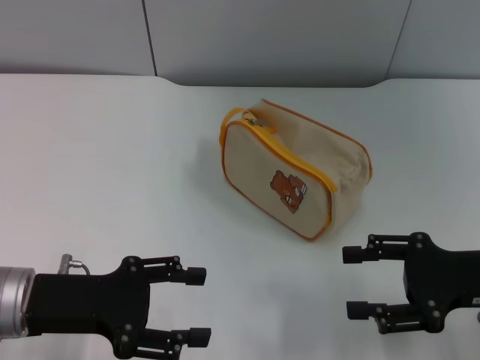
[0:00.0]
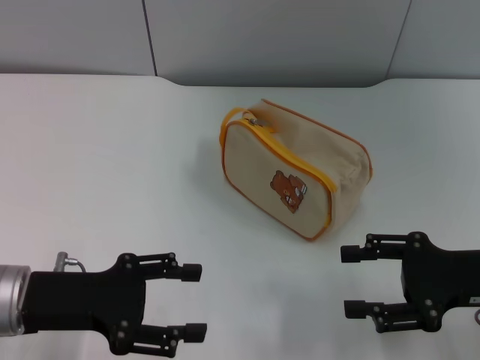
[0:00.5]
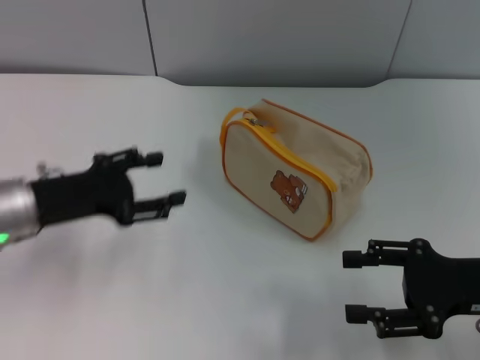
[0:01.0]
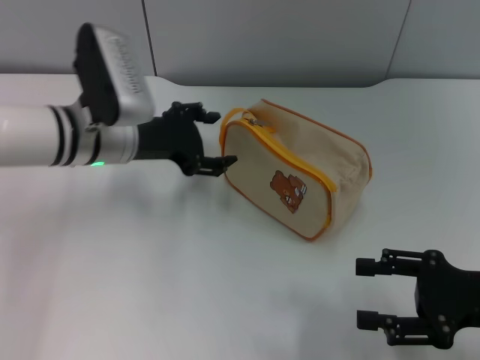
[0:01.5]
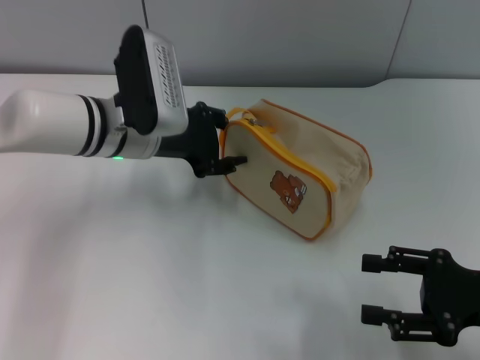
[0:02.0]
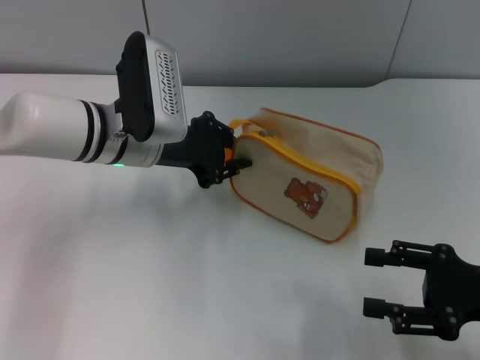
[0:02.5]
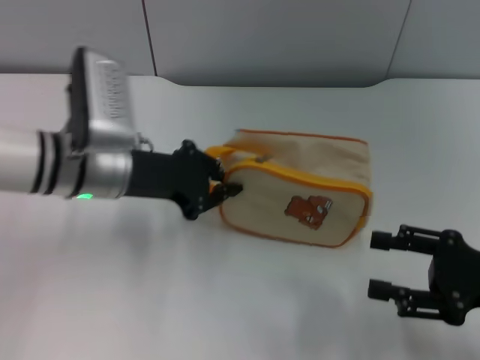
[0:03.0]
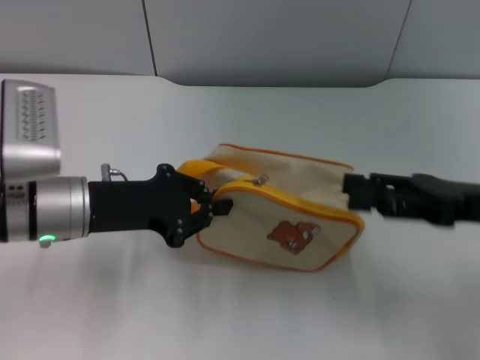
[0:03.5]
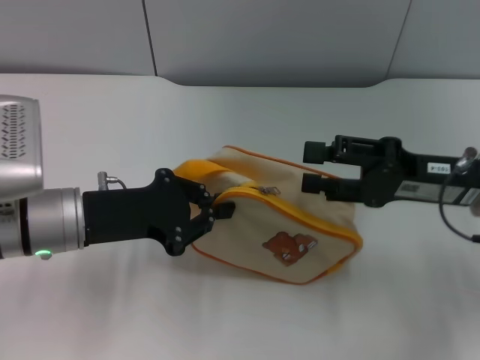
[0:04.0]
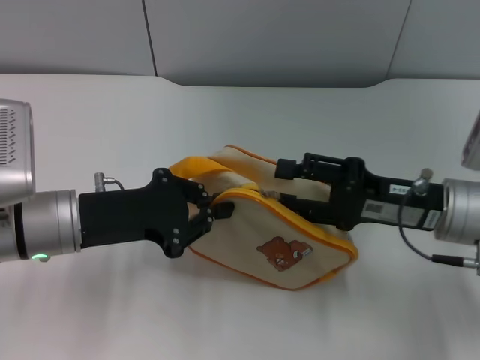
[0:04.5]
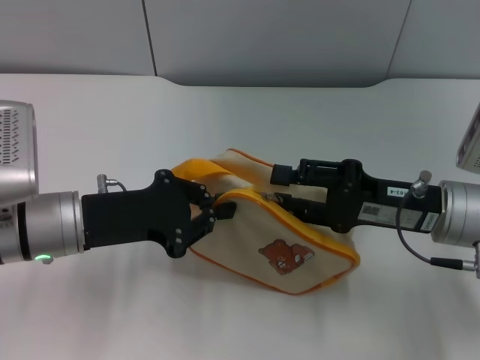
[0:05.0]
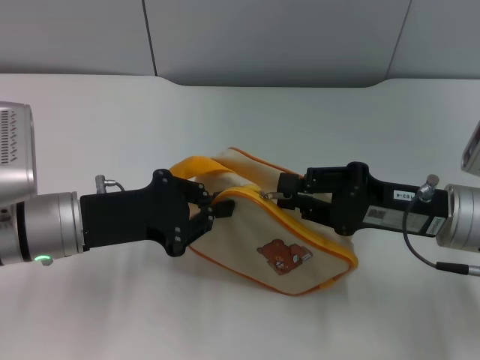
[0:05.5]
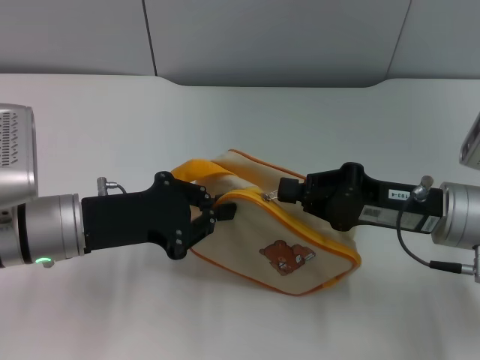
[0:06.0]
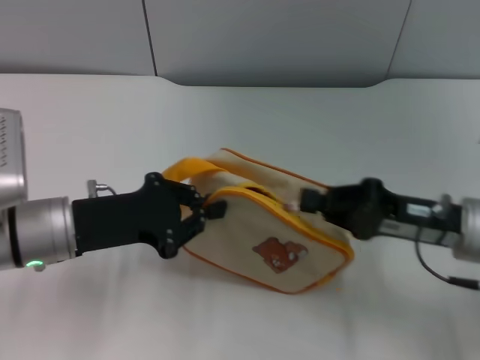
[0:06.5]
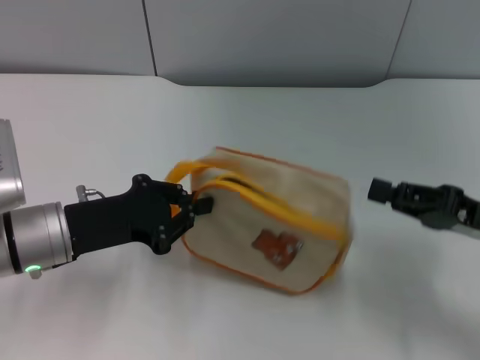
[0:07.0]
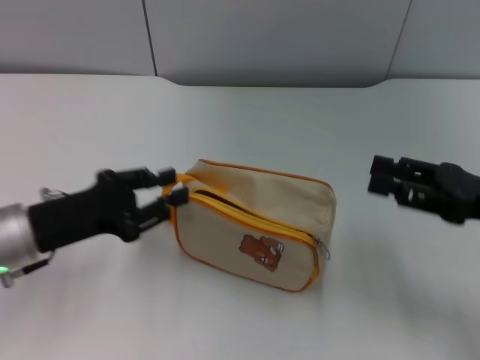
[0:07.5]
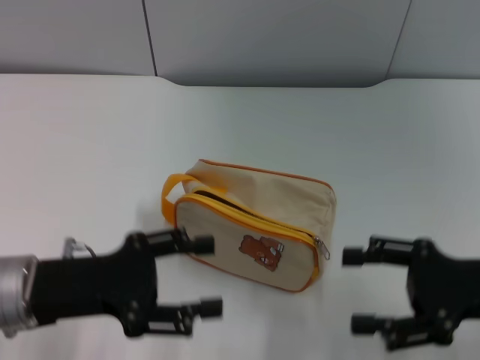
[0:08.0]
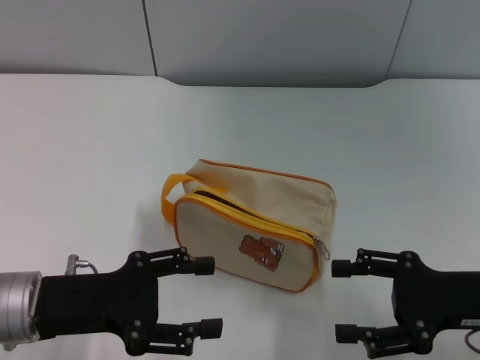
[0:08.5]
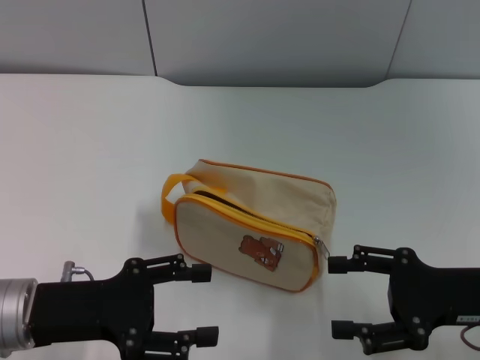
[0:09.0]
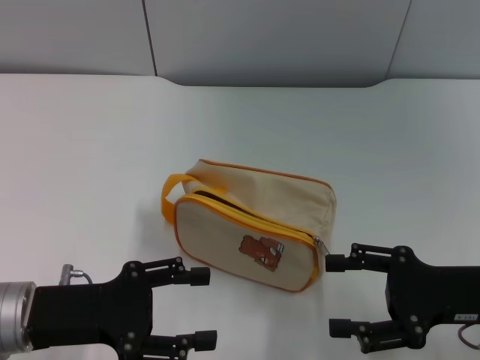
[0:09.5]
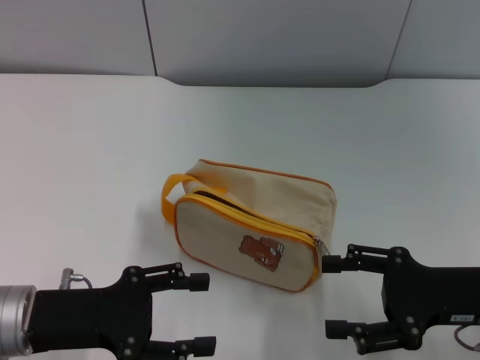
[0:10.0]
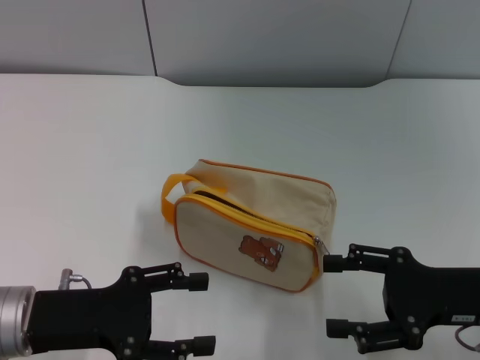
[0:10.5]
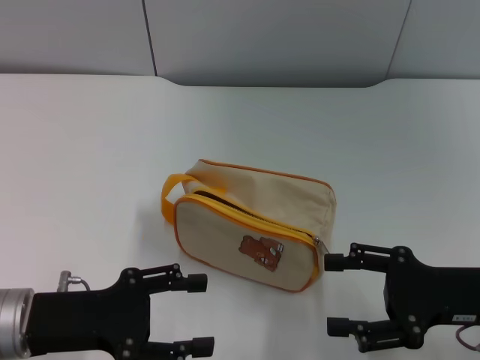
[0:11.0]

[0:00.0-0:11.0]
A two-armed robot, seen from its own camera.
Step, 0:00.0 to 0:03.5: Pick up the bag with left gripper.
Step, 0:04.0 to 0:06.5: Unzip the zipper of bag with right gripper.
0:00.0 to 0:02.0: The left gripper travels forward and to the right by roughly 20 cm.
0:02.0 to 0:03.5: The left gripper travels backward and to the left by approximately 10 cm, and closes its fingers; the right gripper travels forward and upward by roughly 10 cm.
0:03.5 to 0:05.5: The right gripper is displaced to the left by roughly 5 cm, and closes its fingers.
0:05.5 to 0:07.5: The right gripper is displaced to the right by some 10 cm.
0:07.5 to 0:09.0: The right gripper ends up approximately 5 cm from where it was, and opens up; the left gripper is displaced backward by approximately 5 cm, and opens its fingers.
0:09.0 to 0:11.0: Neither gripper changes place.

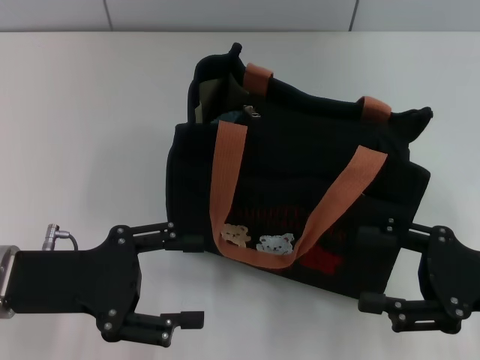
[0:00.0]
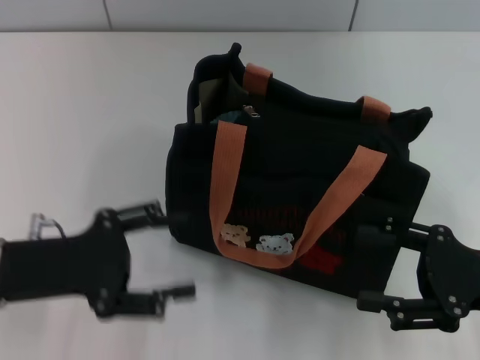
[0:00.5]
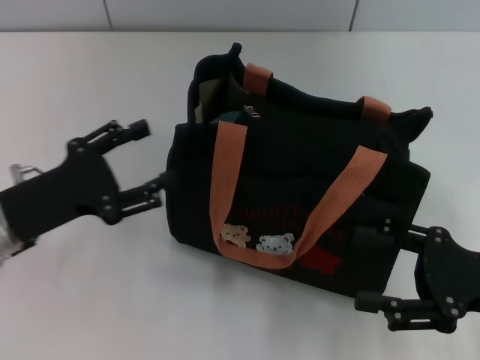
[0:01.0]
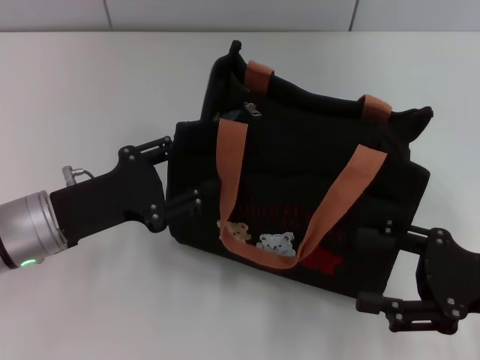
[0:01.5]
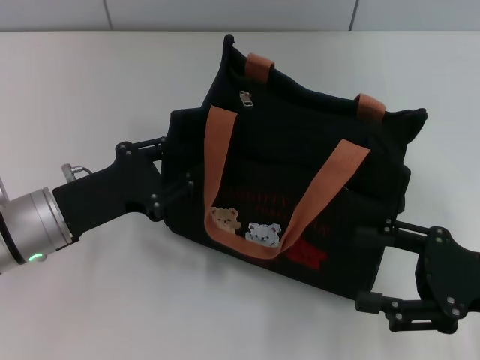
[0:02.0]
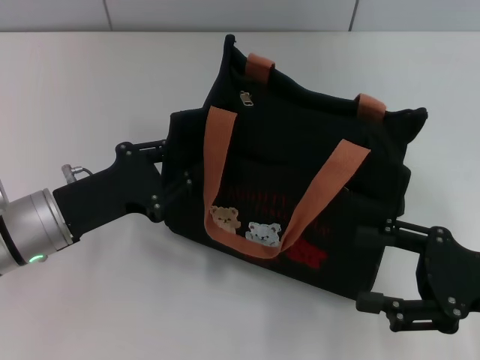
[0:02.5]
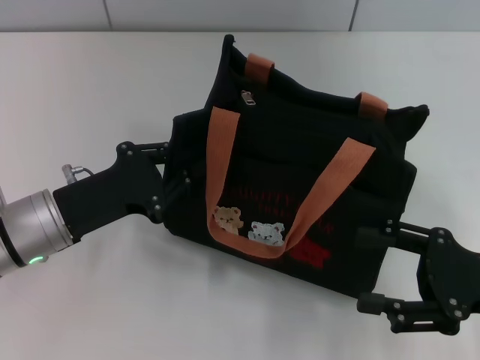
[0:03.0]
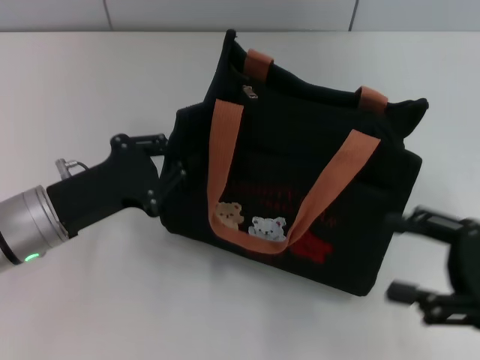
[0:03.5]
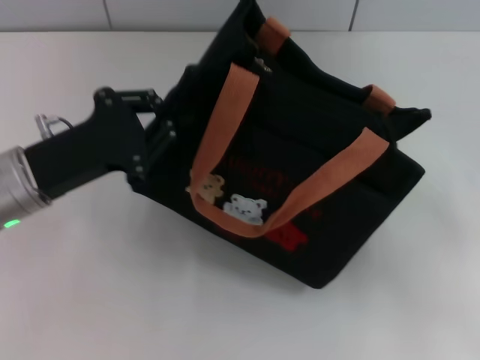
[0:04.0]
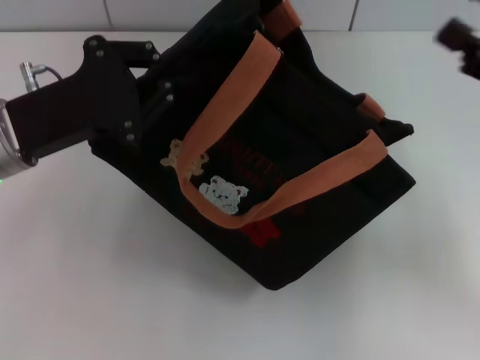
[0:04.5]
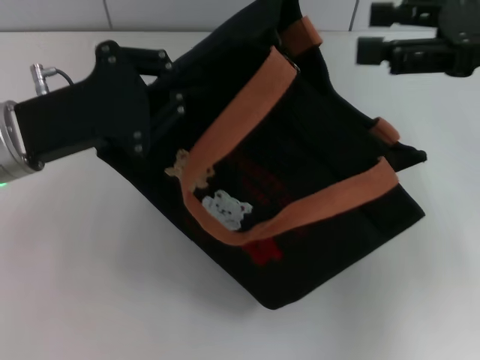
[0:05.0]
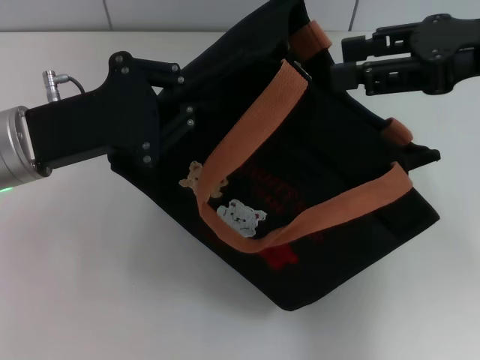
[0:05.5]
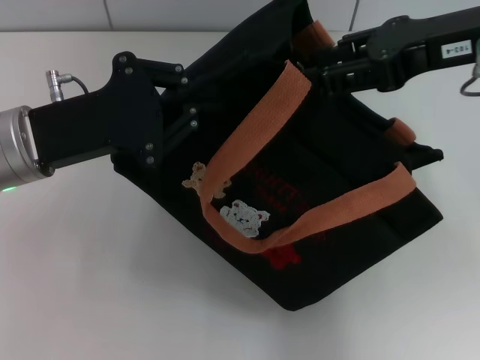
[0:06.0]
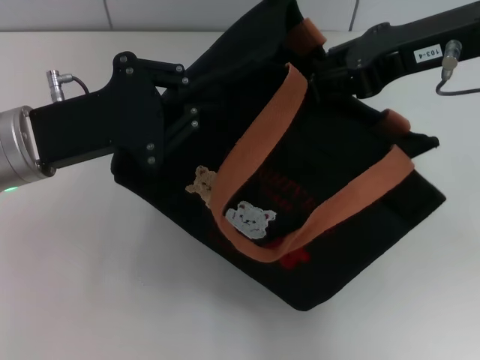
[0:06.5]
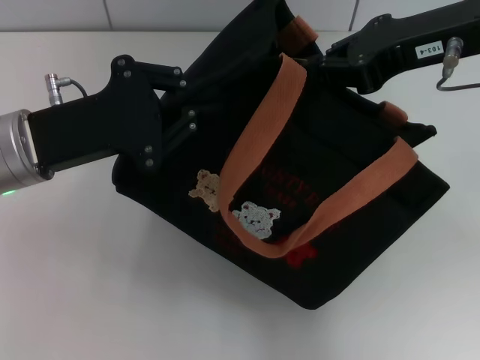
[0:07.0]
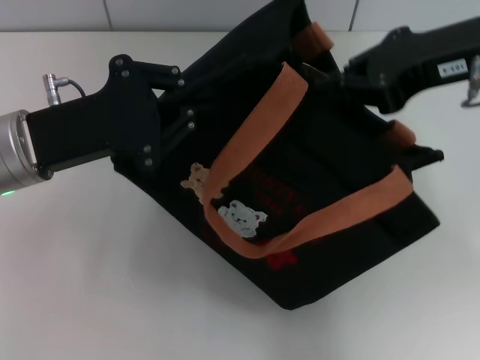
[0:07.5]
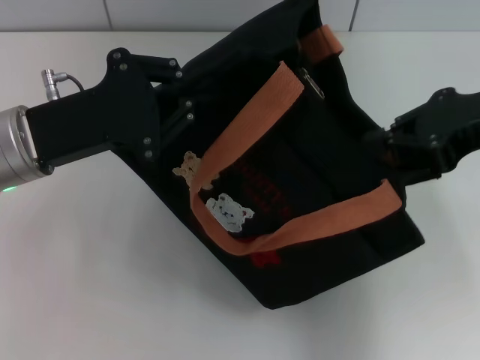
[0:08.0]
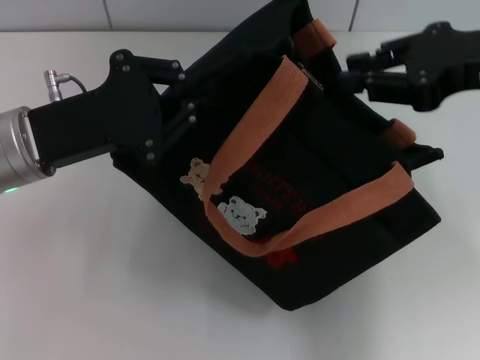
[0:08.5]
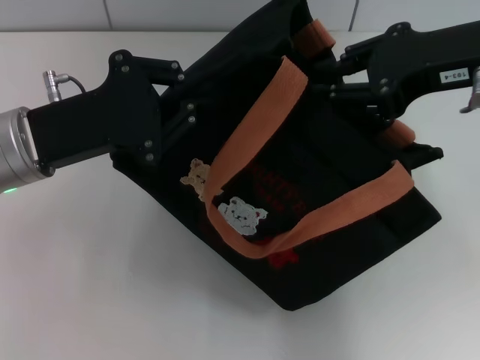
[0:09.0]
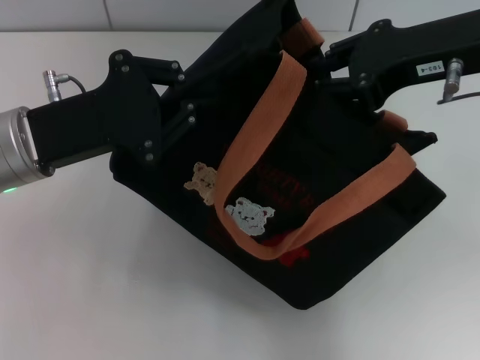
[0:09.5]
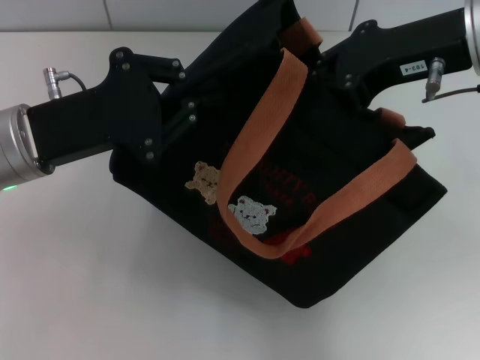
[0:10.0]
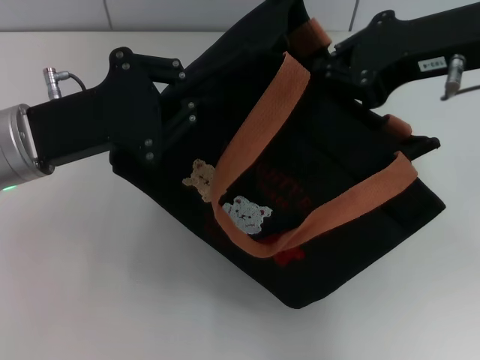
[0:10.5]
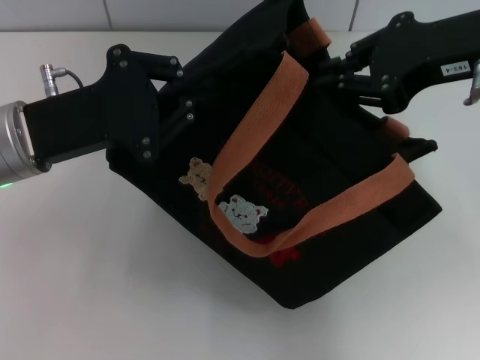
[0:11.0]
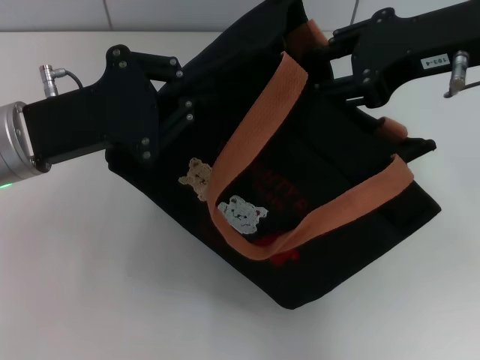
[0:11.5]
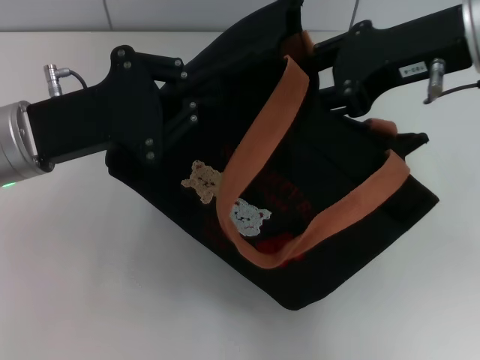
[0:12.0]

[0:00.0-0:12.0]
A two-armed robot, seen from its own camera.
0:00.0 to 0:02.0: The left gripper shifts by about 5 cm, and closes.
0:02.0 to 0:04.0: The left gripper closes its fingers, while the right gripper is displaced to the right by roughly 5 cm.
0:04.0 to 0:06.0: The right gripper shifts some 25 cm upward, to the left and forward.
0:06.0 to 0:08.0: The right gripper ends up about 5 cm from where it was, and closes up.
0:08.0 to 0:10.0: The right gripper goes some 5 cm to the left.
0:10.0 to 0:12.0: The right gripper opens up.

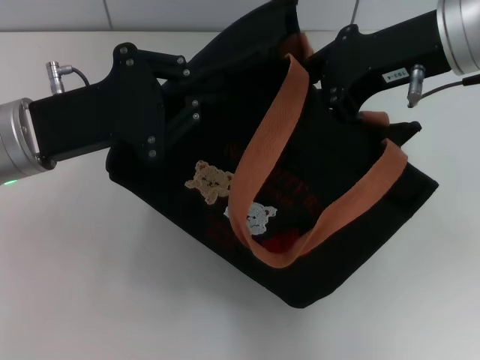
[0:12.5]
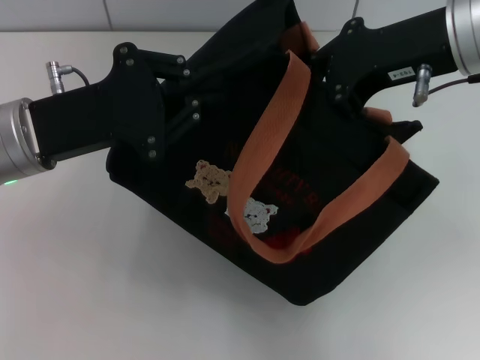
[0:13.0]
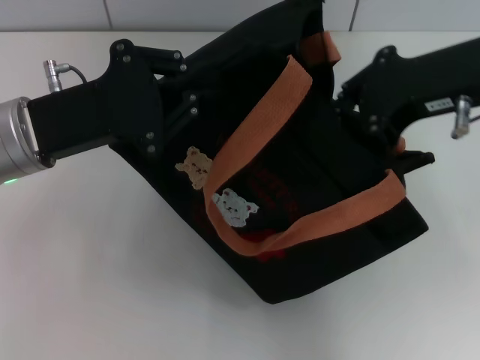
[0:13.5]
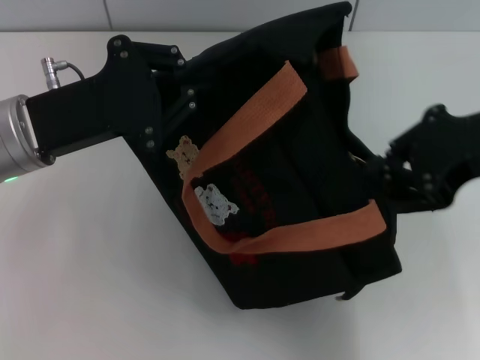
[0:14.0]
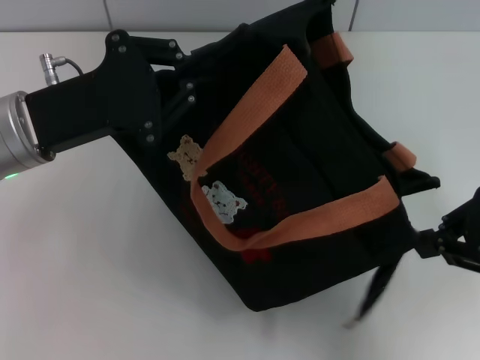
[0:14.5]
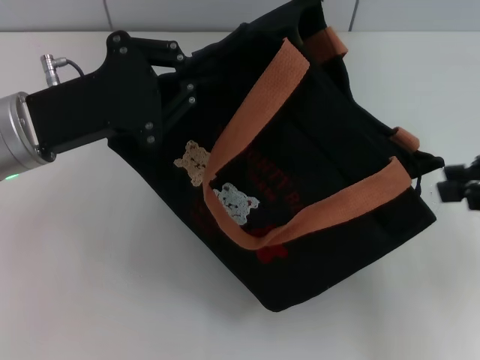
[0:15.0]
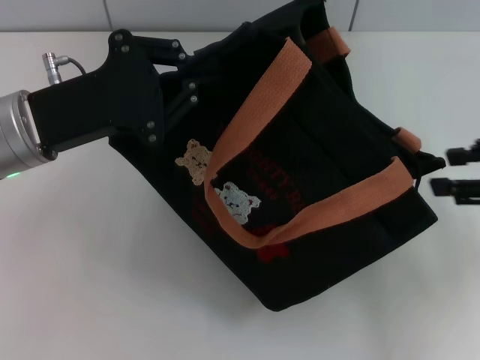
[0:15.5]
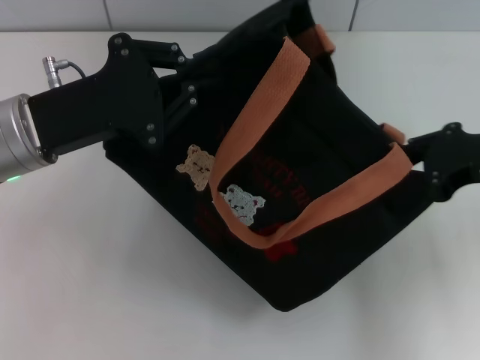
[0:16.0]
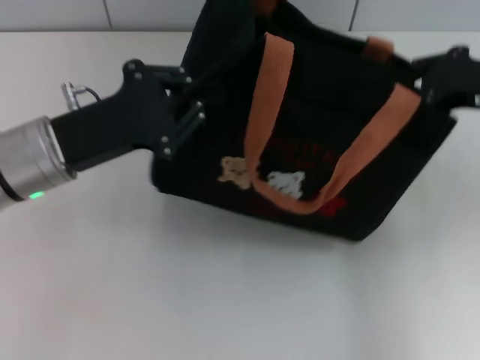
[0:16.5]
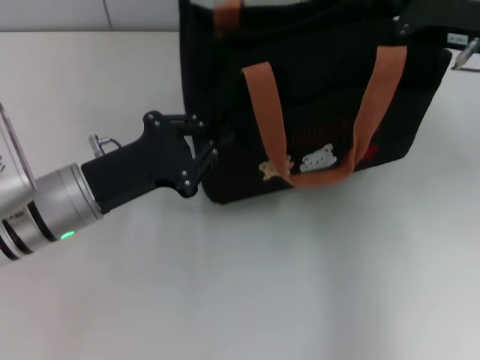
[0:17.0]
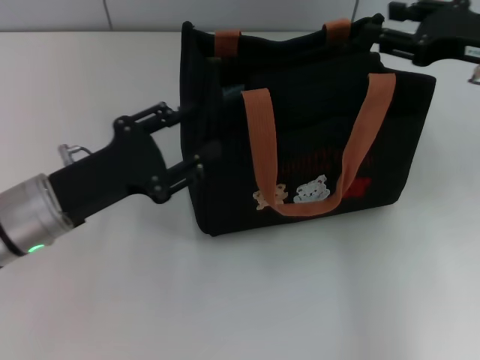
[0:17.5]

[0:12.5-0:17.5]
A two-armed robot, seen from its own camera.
Step, 0:12.5 to 0:14.5: Pull open the zipper with your right hand.
Step, 0:15.0 to 0:17.5: Grab the bag with your left hand.
0:12.5 to 0:15.0: The right gripper heads to the right and backward, covering some 15 cm.
0:15.0 to 0:17.5: The right gripper goes about 10 cm forward. Meanwhile the left gripper moves downward, about 5 cm.
